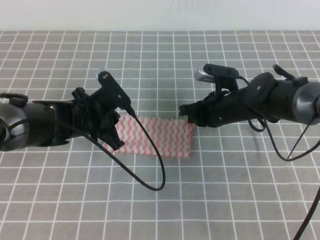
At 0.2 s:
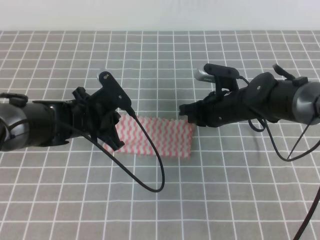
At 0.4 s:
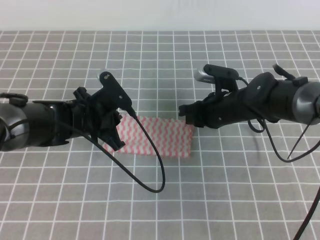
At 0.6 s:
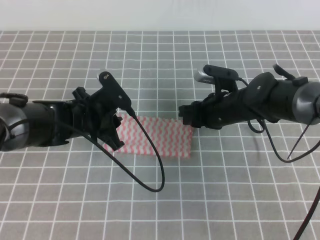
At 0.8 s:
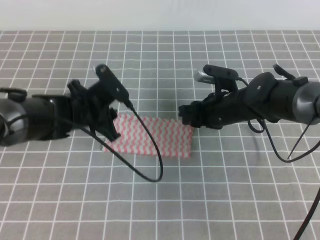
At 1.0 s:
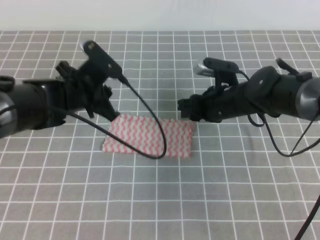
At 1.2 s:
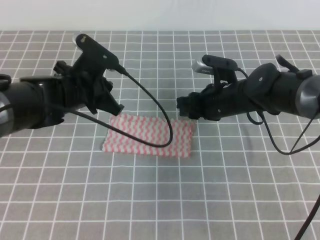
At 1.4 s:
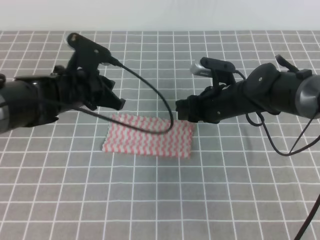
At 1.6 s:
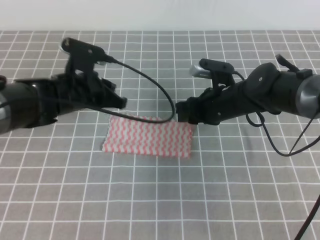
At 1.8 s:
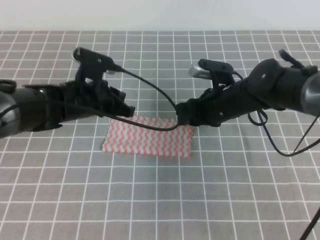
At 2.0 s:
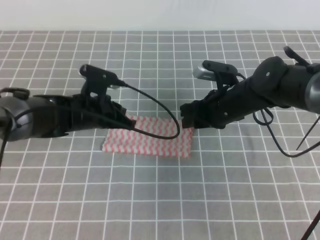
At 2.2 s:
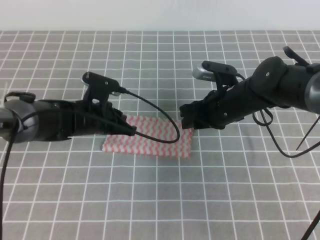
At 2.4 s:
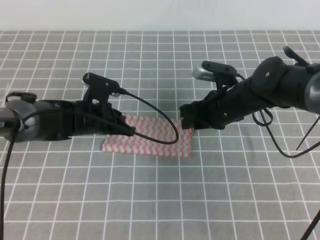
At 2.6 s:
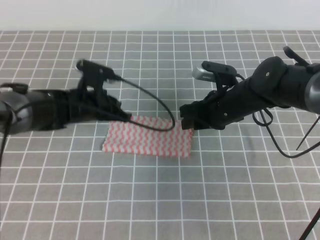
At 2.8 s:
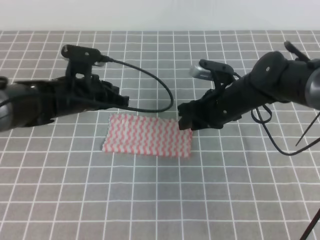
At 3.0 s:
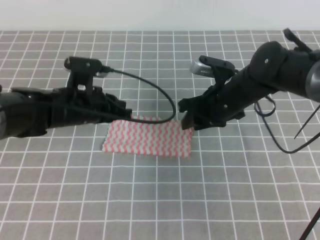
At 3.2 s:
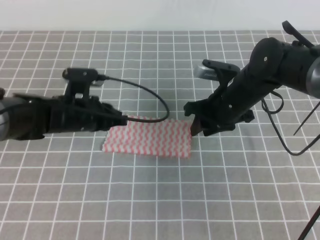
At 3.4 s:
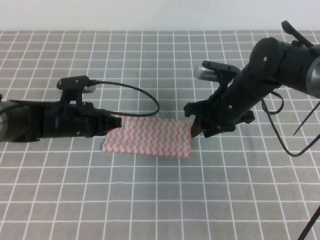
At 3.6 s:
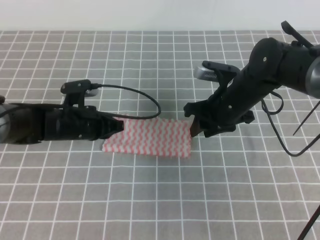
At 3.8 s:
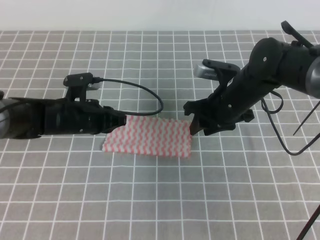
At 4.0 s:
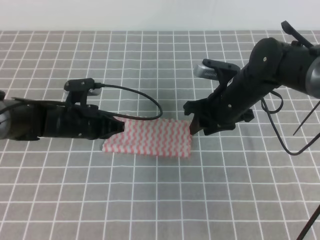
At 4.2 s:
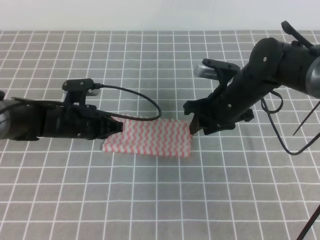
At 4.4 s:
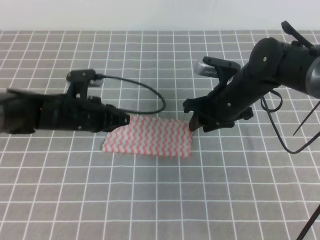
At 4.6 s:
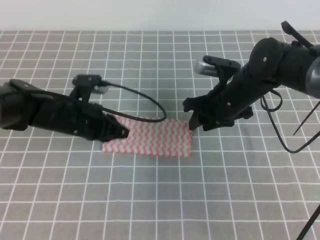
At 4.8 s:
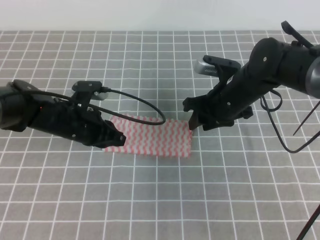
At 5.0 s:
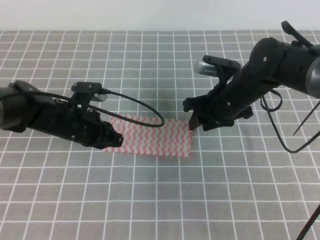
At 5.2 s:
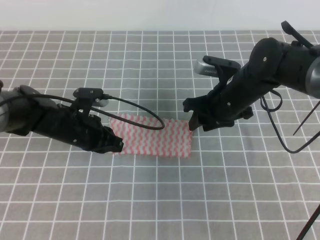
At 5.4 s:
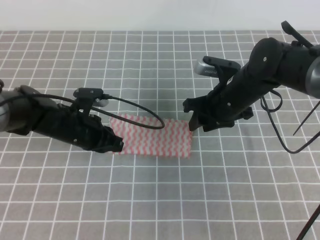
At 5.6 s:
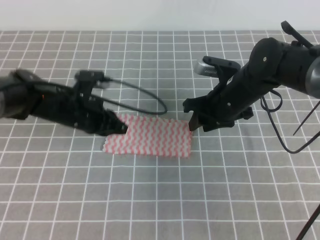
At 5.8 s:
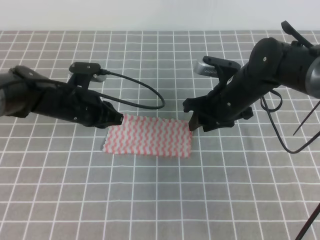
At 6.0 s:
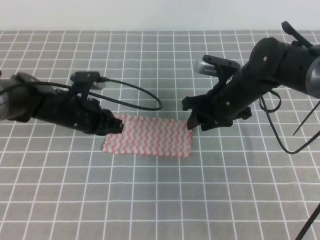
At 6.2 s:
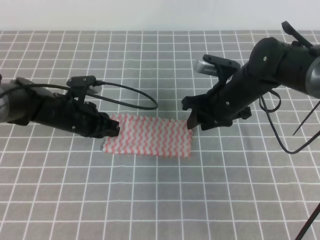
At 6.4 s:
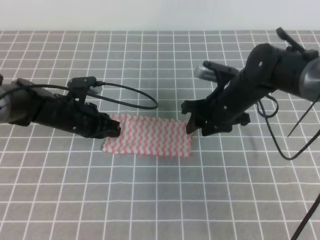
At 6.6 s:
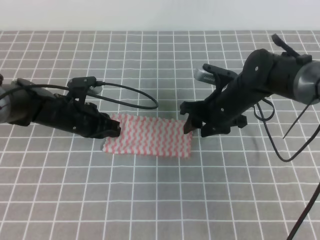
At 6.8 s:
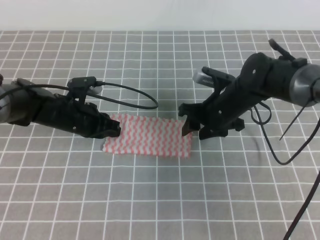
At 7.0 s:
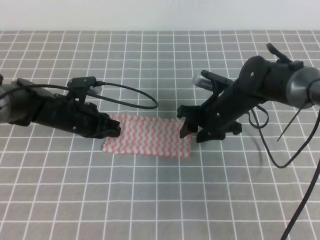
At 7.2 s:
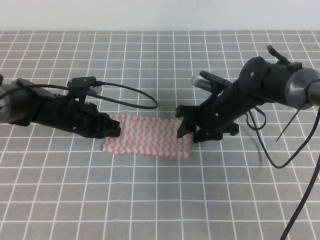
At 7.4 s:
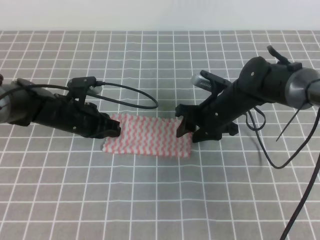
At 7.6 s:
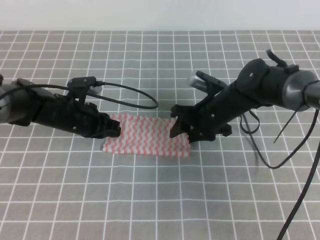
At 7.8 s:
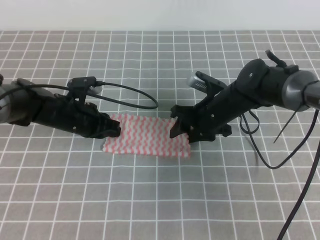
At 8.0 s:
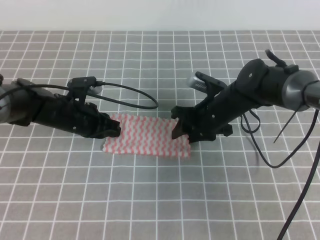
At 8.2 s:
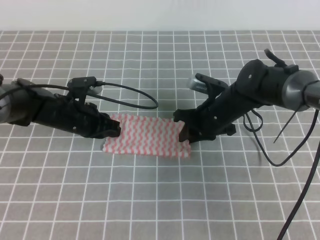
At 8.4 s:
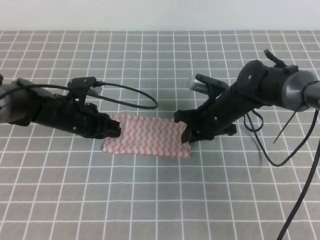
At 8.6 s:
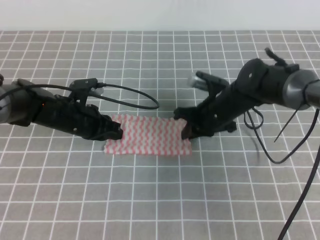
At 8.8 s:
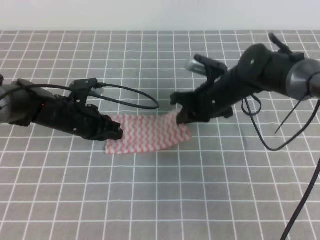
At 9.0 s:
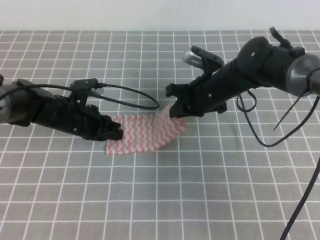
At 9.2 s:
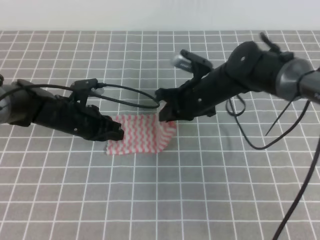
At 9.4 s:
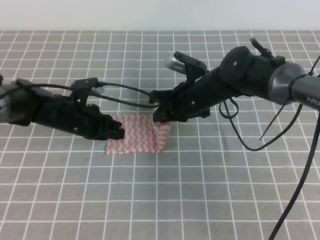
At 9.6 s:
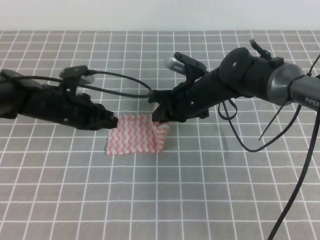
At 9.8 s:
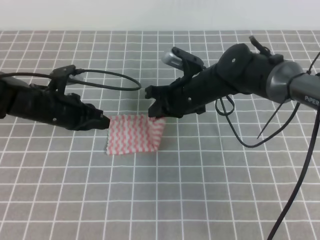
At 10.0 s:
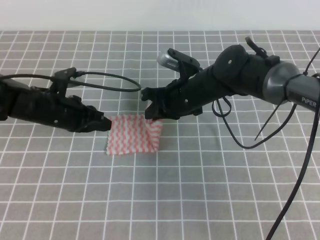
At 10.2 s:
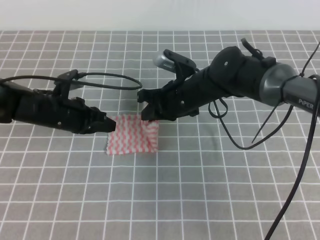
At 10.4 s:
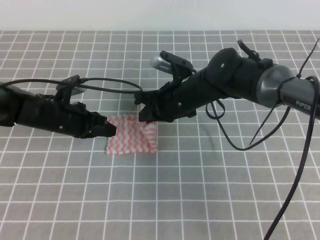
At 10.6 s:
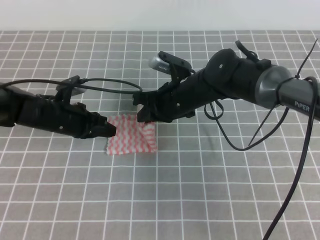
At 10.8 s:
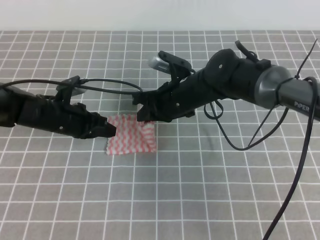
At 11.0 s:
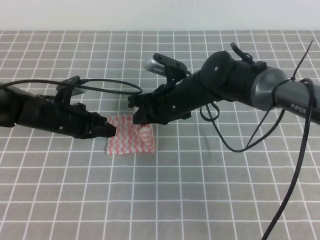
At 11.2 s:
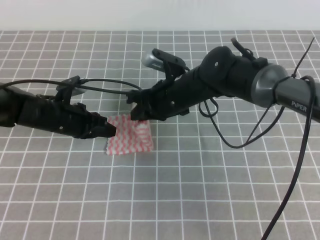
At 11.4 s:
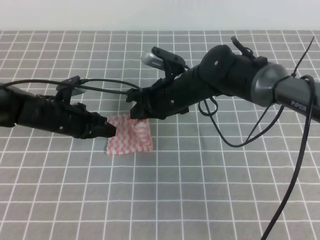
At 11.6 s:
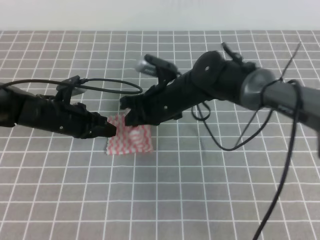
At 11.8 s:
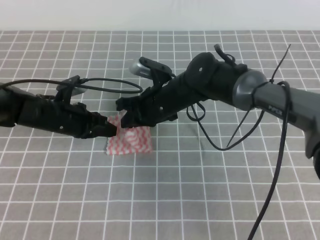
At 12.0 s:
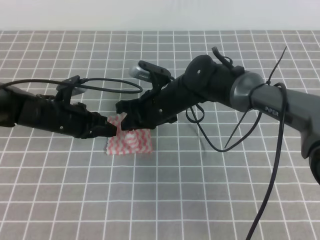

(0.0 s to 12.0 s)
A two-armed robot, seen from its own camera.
0.0 s - 1.6 s: The right gripper opens its fingers.
3.0 s - 4.4 s: There are only small adjustments of the grippers.
4.4 s - 6.0 s: The grippers move only a little.
6.0 s - 7.6 s: The right gripper heads downward, covering about 5 cm.
7.6 s - 9.0 s: The right gripper closes up.
9.0 s - 10.4 s: The right gripper is displaced to the left by about 5 cm.
10.4 s - 12.0 s: The grippers stay close to where they were, moving slightly.

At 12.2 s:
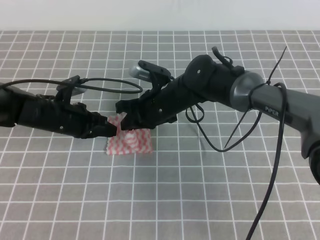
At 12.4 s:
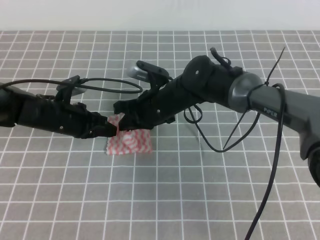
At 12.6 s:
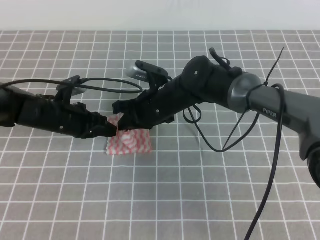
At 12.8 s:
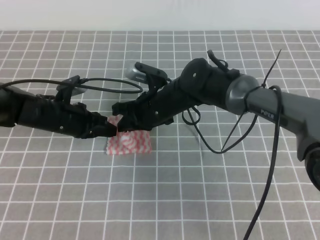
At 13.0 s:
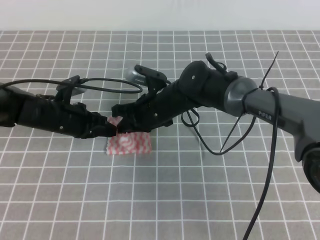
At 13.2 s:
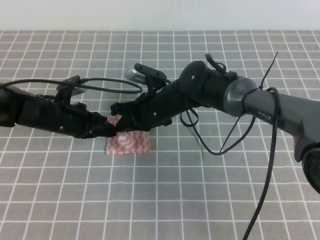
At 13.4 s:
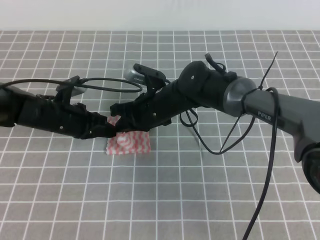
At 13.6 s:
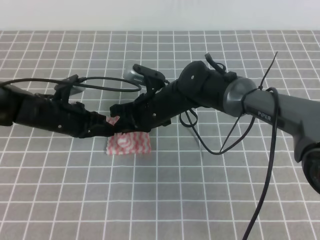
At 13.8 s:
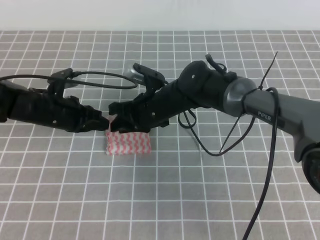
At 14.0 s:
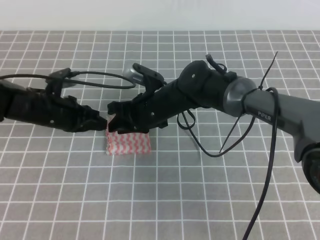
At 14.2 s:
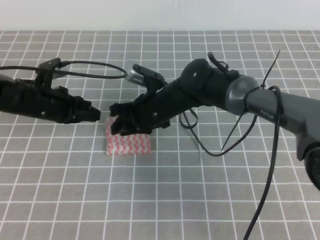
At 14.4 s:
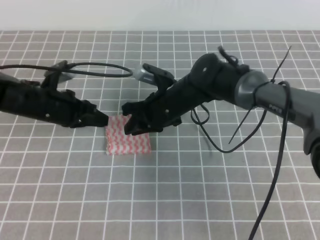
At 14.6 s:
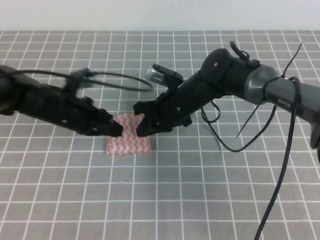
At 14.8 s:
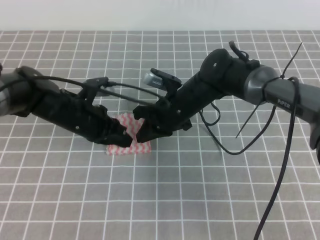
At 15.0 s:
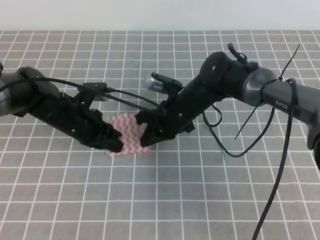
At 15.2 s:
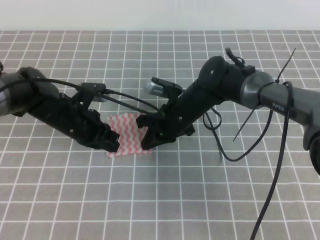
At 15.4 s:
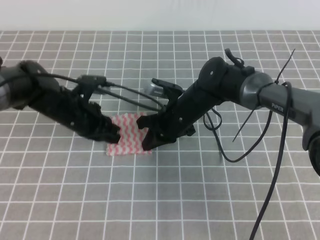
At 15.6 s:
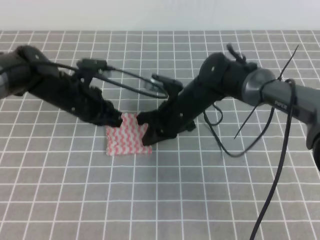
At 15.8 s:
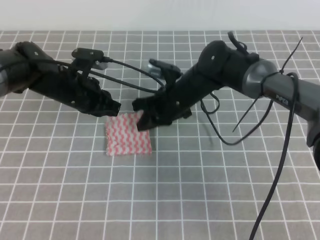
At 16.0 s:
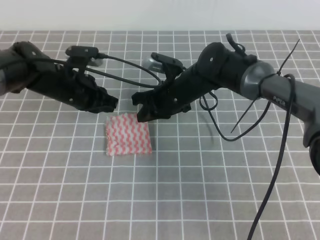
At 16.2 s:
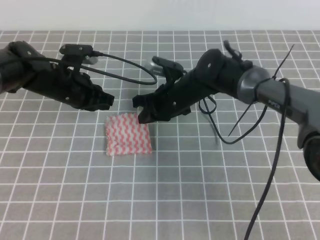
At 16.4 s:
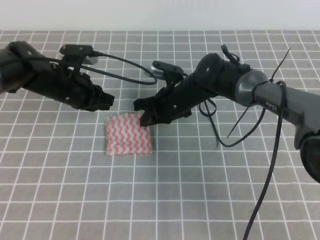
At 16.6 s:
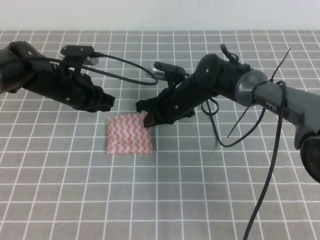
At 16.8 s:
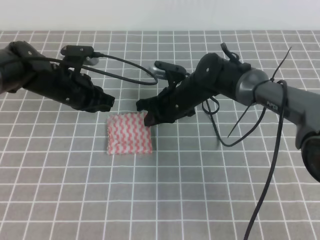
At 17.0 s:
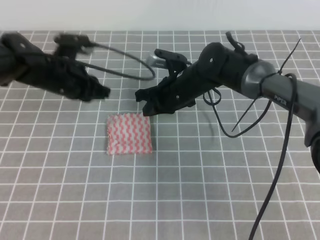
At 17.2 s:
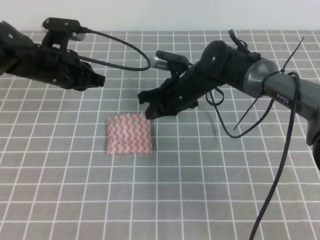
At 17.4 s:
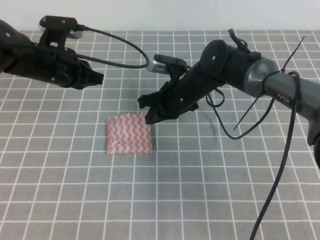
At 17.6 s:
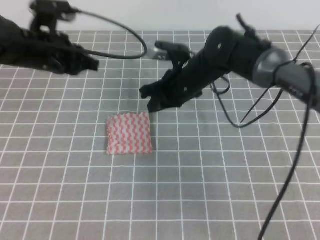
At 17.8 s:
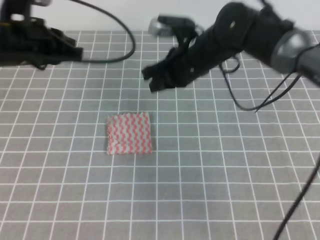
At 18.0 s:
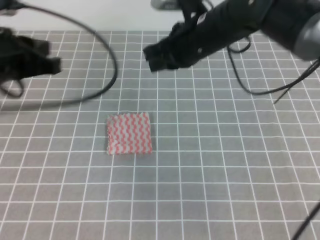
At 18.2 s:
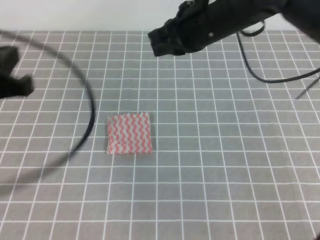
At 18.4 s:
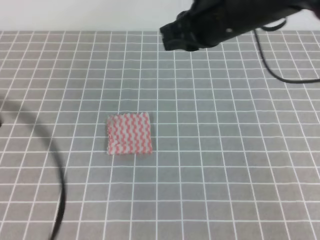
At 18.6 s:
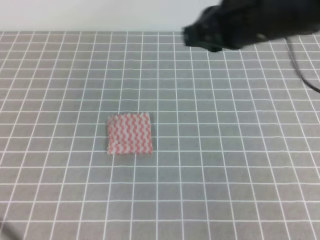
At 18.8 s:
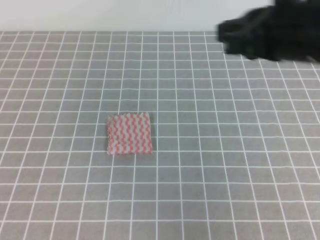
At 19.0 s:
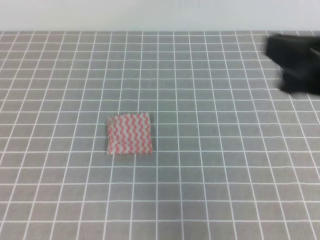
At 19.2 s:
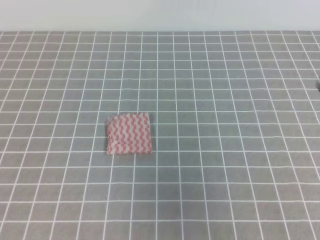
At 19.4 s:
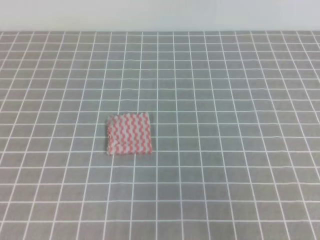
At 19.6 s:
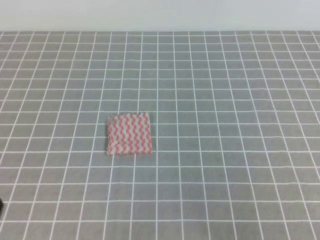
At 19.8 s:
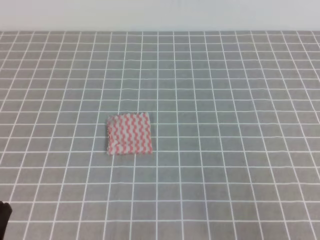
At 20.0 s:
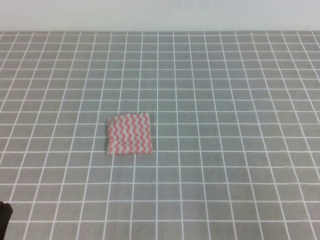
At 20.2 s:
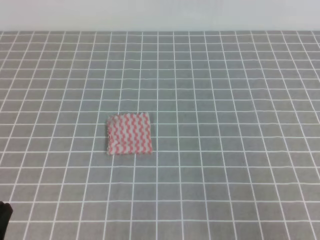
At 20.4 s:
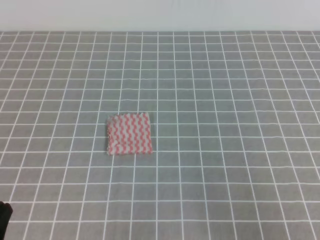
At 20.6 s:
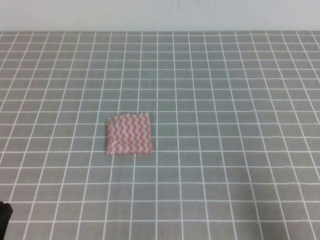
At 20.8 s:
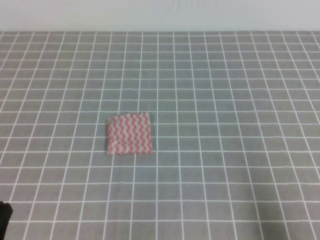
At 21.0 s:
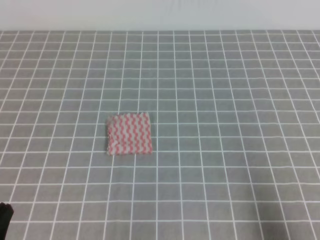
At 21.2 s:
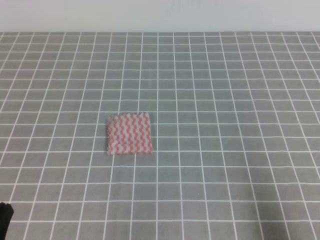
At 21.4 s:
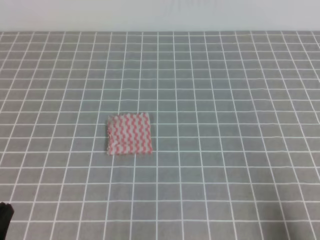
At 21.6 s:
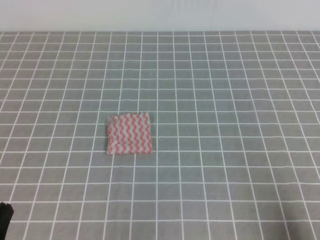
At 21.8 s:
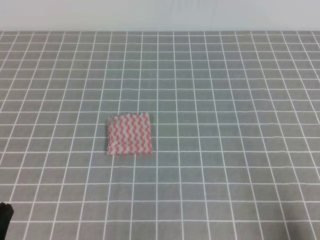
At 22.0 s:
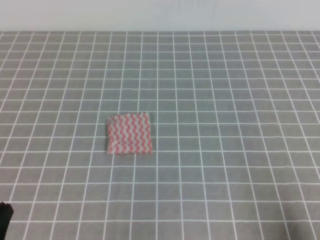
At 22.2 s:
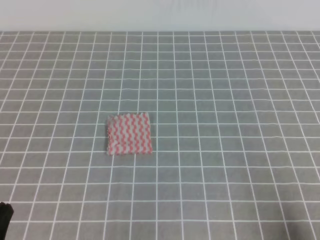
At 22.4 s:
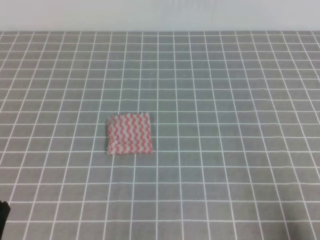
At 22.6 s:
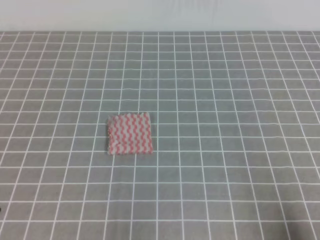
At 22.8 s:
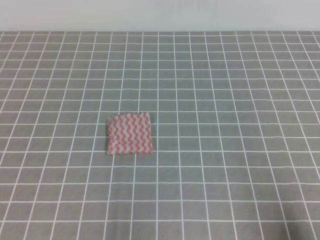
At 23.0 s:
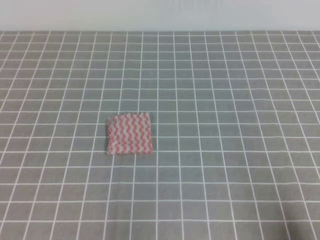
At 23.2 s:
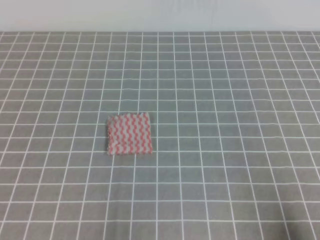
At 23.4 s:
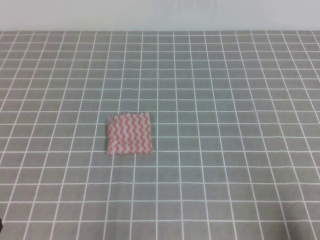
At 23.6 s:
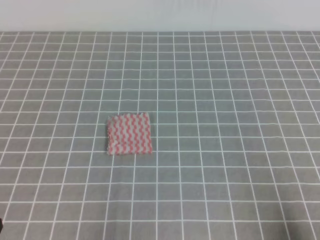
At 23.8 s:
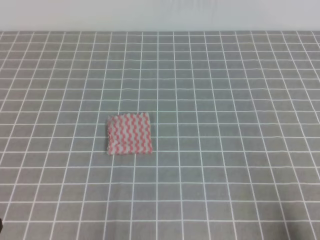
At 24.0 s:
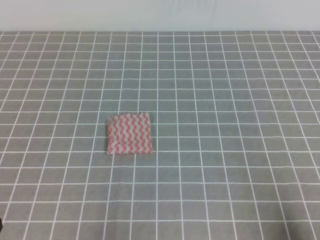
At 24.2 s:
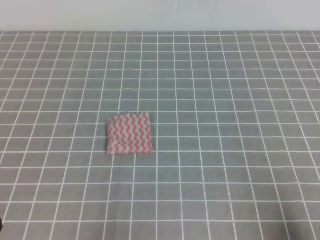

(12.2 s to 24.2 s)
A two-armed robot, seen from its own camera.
Step, 12.2 s - 24.2 s: Fold the towel.
12.2 s - 13.8 s: The right gripper opens up.
13.8 s - 15.2 s: The right gripper changes place by approximately 5 cm, and closes up.
15.2 s - 16.6 s: The left gripper moves roughly 5 cm.
16.6 s - 18.2 s: The left gripper is displaced backward and upward by about 25 cm. Meanwhile the right gripper heads upward, covering some 20 cm.
18.2 s - 19.8 s: The left gripper goes about 25 cm downward and backward. Meanwhile the right gripper moves backward and to the right, approximately 35 cm.
19.8 s - 21.2 s: The right gripper ends up some 5 cm from where it was.
21.2 s - 22.6 s: The grippers stay close to where they were, moving slightly.
